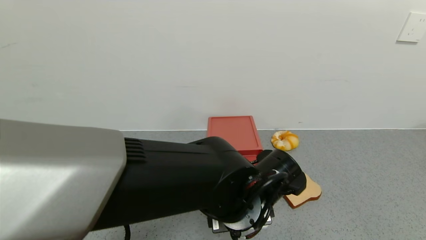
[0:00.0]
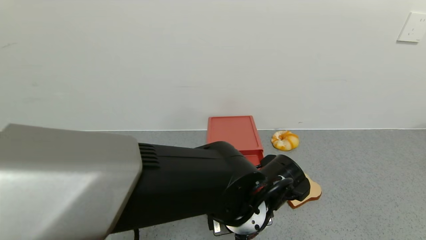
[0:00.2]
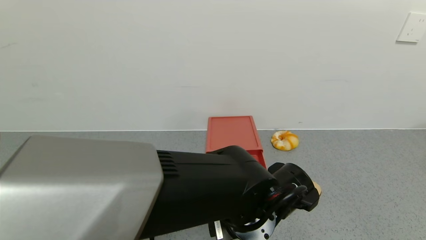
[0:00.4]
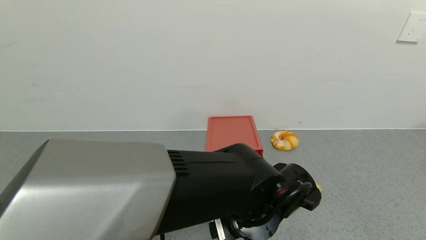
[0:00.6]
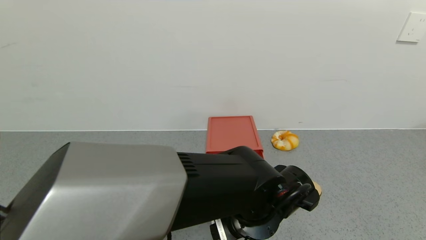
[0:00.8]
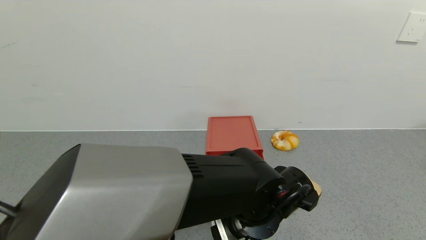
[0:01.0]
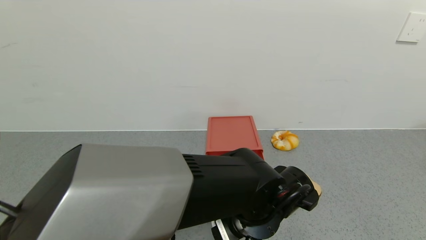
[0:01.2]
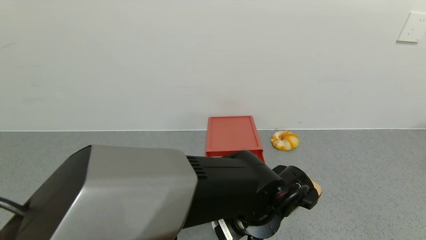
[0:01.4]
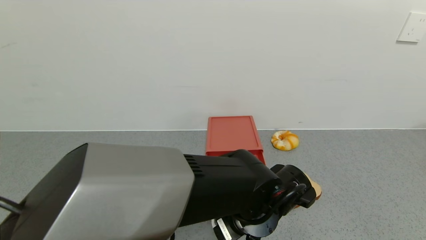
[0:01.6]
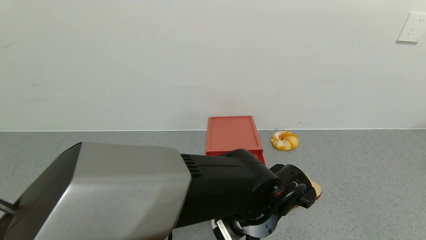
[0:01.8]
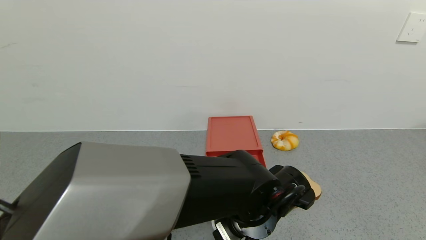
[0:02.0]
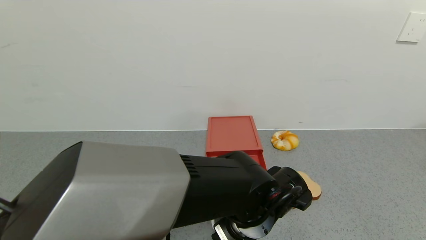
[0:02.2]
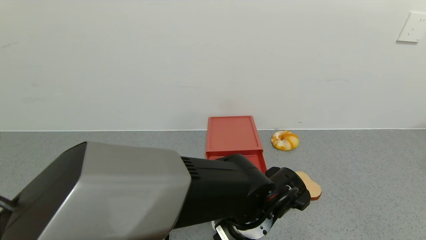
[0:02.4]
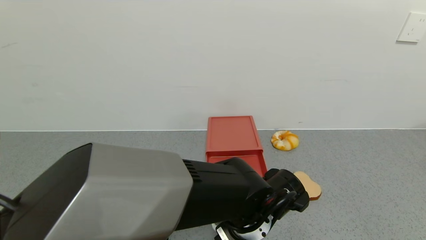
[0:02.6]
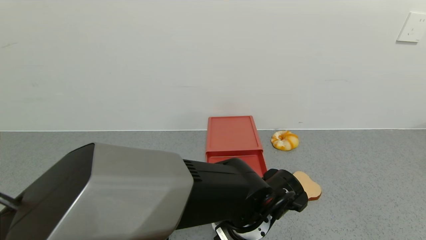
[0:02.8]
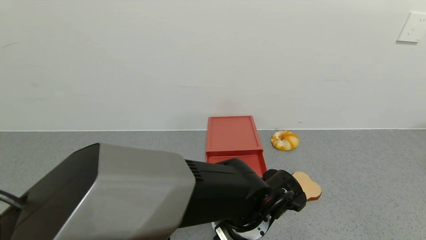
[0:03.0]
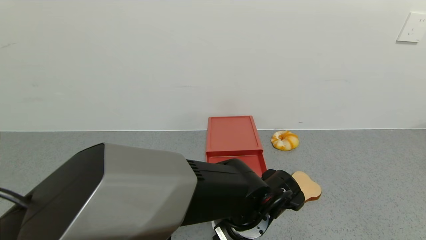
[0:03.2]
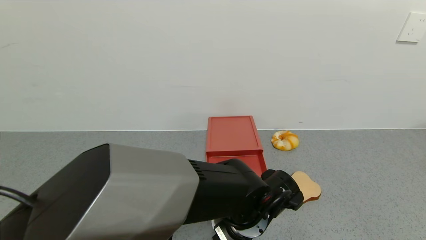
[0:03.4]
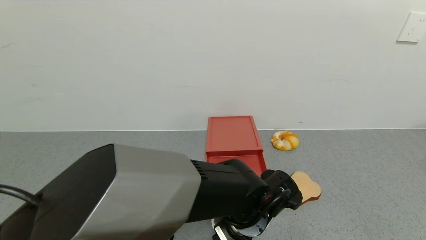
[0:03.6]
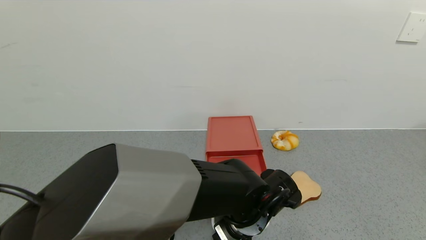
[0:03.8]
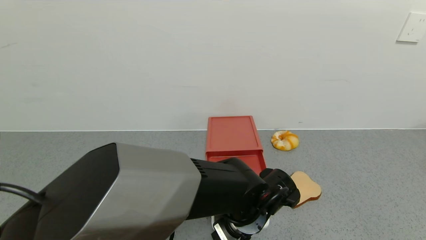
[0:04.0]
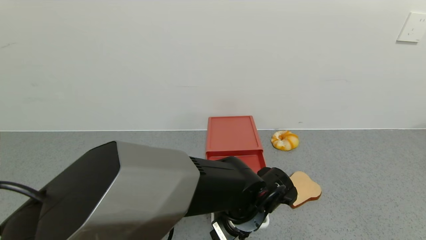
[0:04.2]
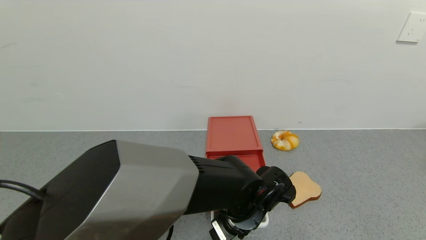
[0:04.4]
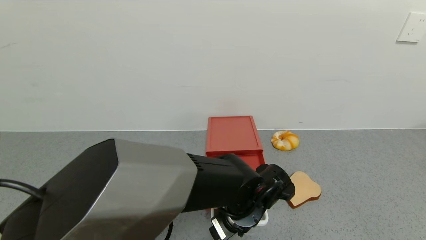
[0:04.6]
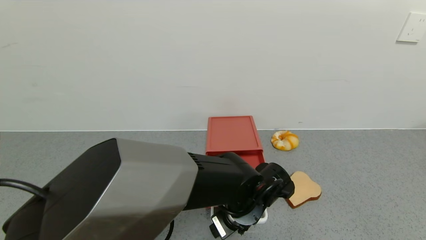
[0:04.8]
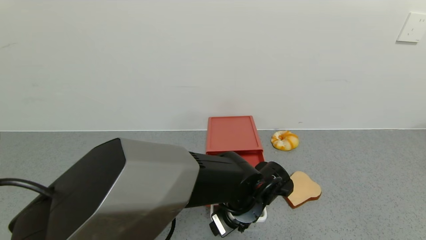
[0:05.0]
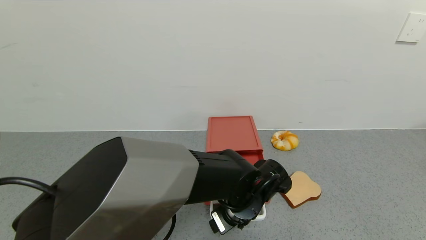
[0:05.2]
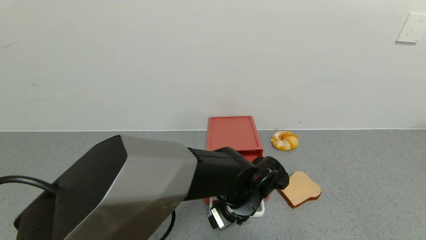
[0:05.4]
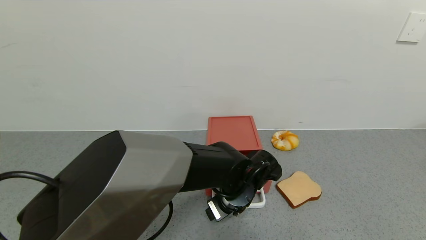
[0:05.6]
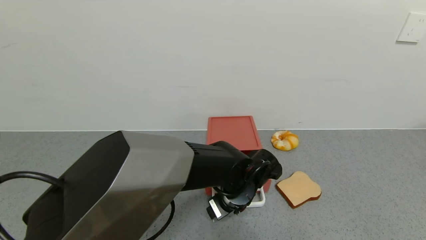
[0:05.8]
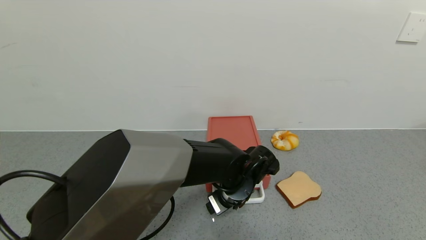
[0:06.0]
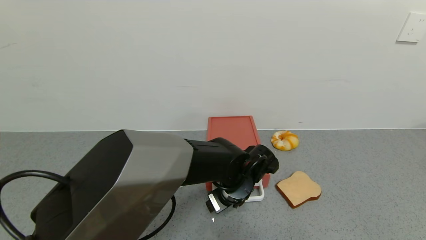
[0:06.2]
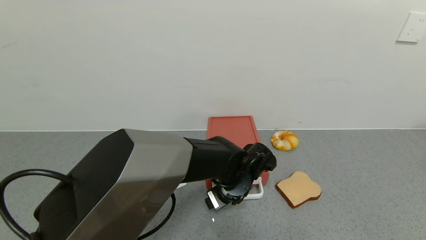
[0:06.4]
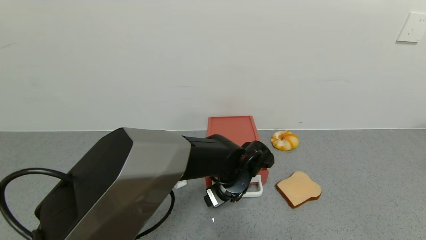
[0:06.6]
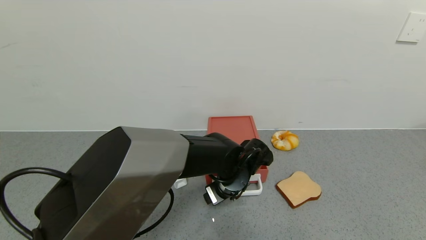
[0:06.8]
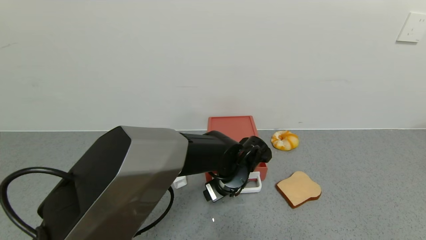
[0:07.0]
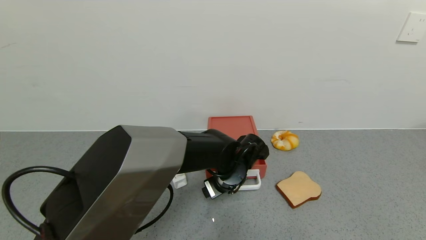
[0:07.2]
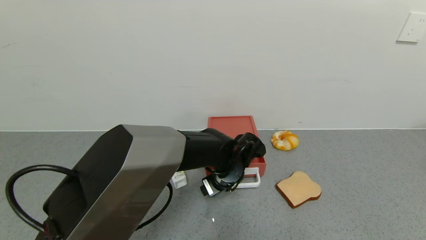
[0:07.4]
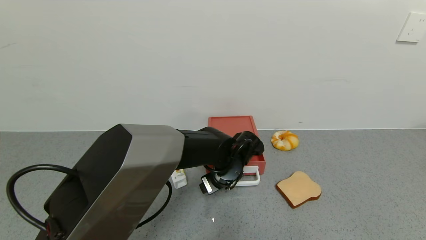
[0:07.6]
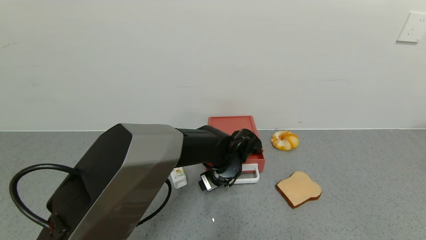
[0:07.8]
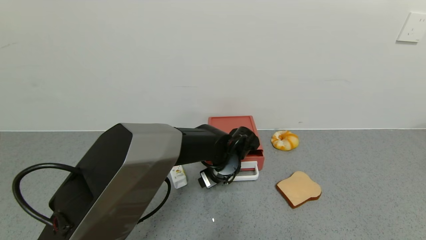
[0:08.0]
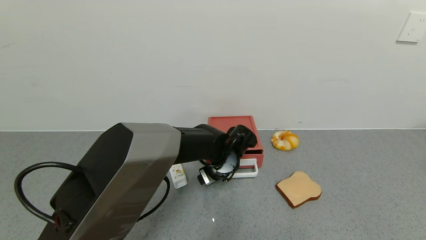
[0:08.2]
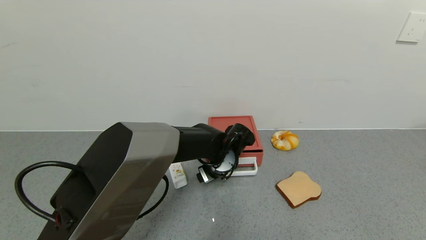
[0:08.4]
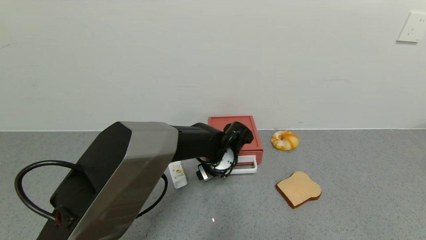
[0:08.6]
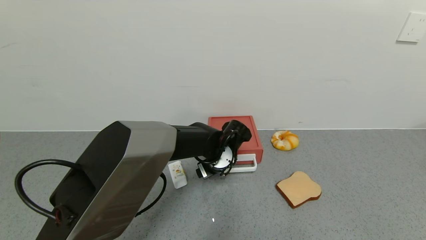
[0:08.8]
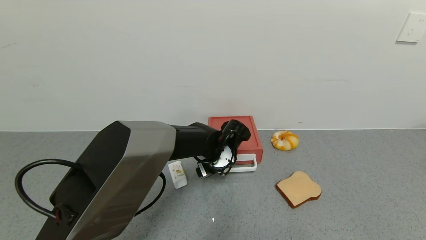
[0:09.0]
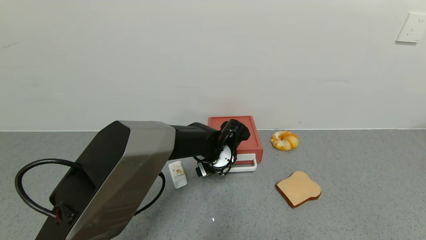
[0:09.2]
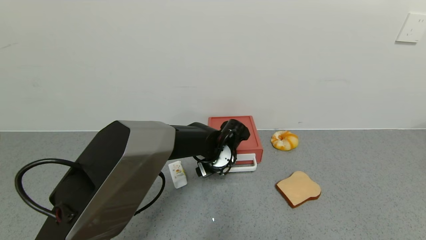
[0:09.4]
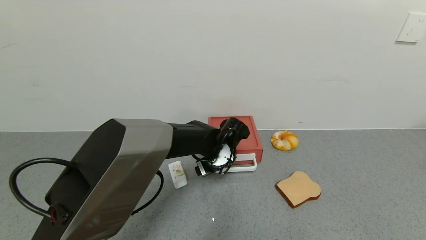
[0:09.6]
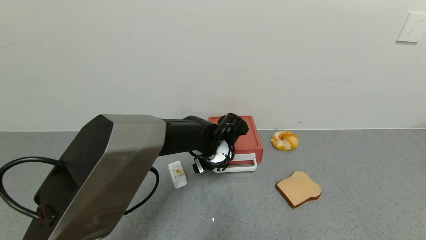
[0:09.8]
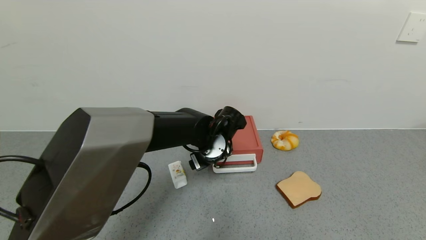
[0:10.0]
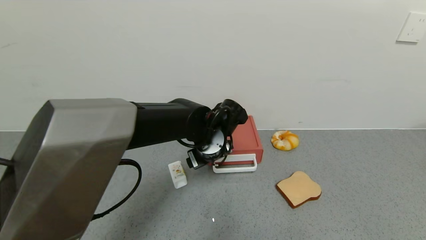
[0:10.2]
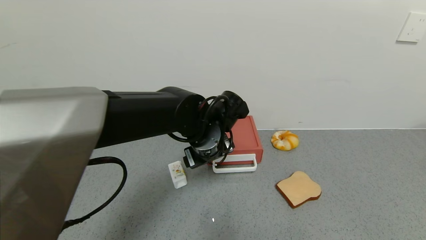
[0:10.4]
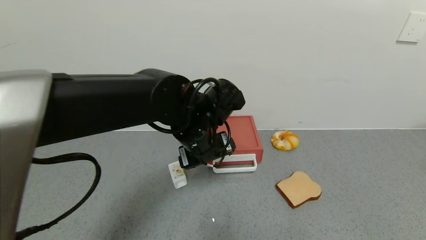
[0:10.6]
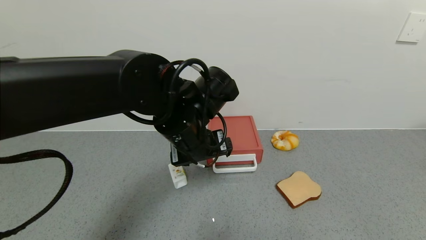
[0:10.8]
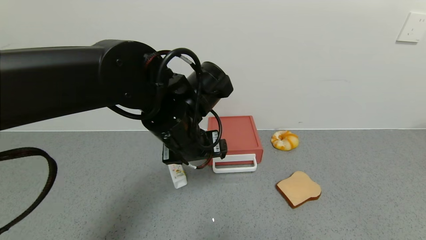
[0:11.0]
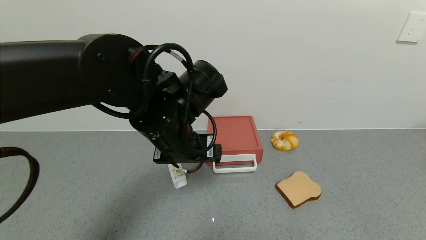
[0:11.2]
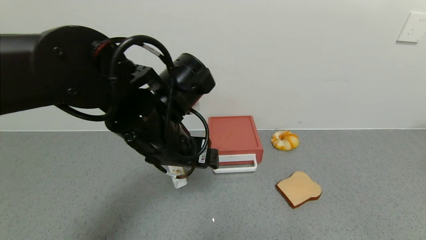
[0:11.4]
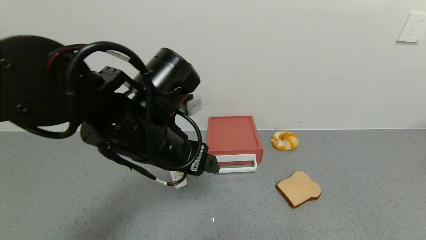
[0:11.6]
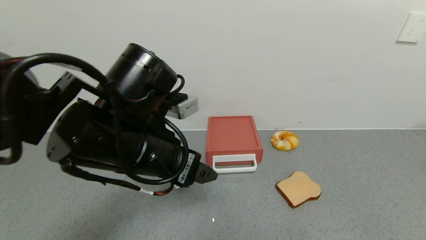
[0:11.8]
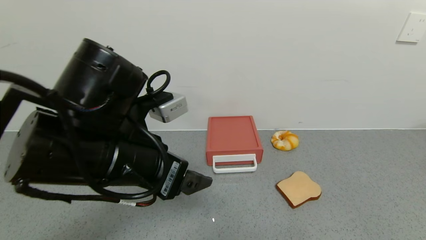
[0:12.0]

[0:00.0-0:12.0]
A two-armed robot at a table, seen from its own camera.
Task of the whole recording: use the gripper to open the drawer and close the red drawer.
Step, 0:00.0 to 0:10.0: Close the red drawer with the left gripper.
0:01.6 to 0:04.4: The grippers stay close to where they were, moving slightly.
0:04.4 to 0:06.0: The left gripper goes roughly 5 cm forward.
0:06.0 to 0:07.6: The grippers stay close to where they were, moving slightly.
0:07.6 to 0:09.0: The left gripper ends up some 5 cm from where it was.
0:09.0 to 0:10.4: The left gripper is displaced upward and backward by some 10 cm.
0:10.4 to 0:12.0: The left gripper heads backward, to the left and upward, covering roughly 20 cm.

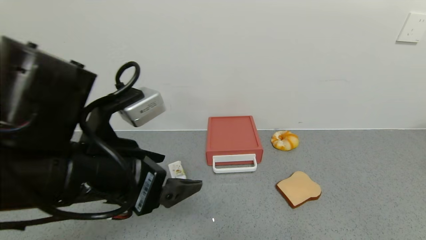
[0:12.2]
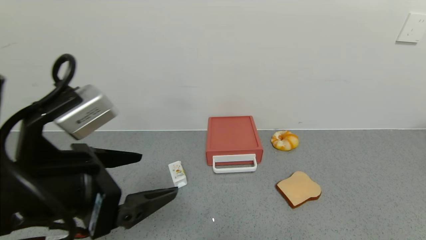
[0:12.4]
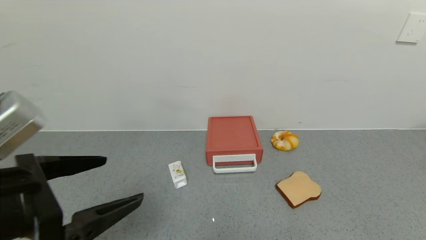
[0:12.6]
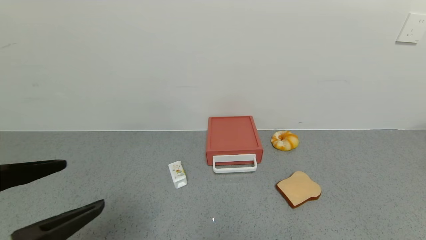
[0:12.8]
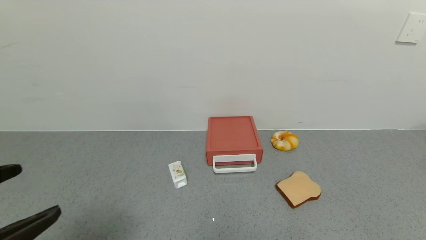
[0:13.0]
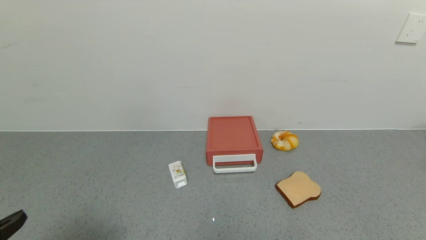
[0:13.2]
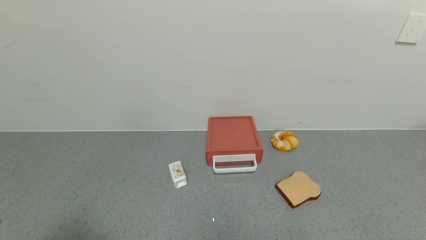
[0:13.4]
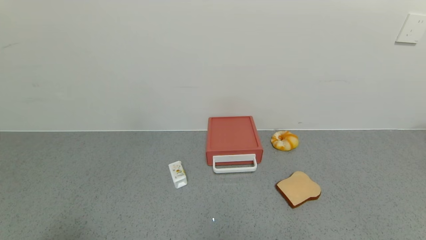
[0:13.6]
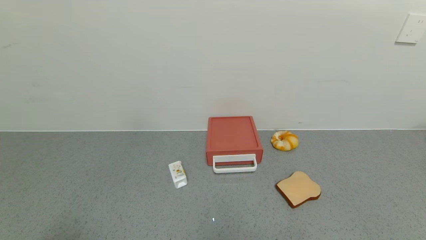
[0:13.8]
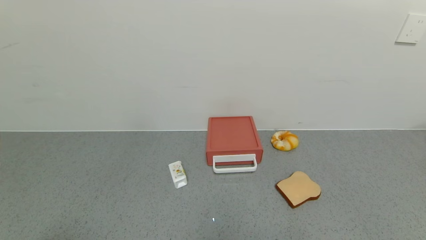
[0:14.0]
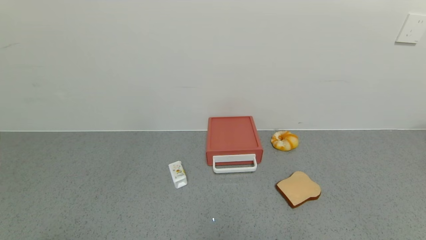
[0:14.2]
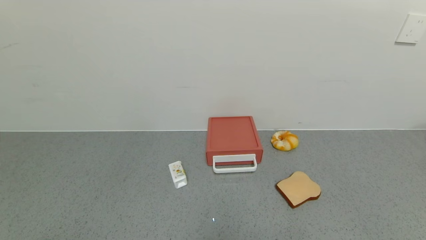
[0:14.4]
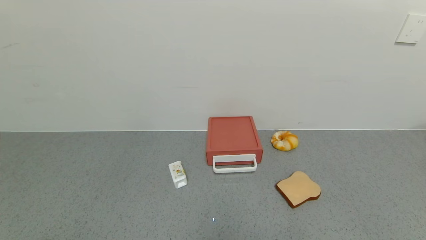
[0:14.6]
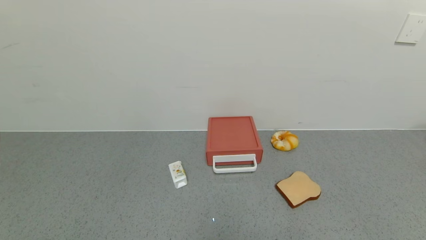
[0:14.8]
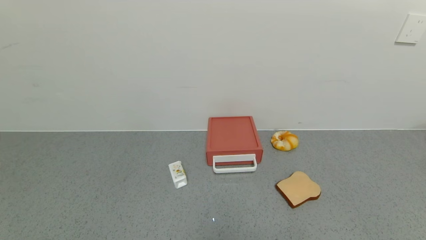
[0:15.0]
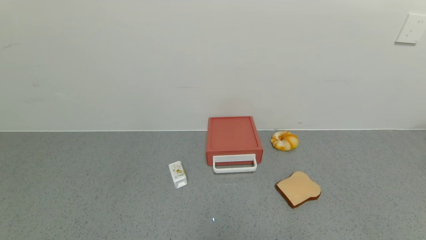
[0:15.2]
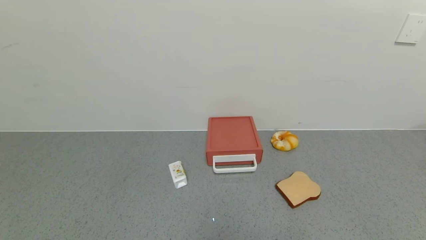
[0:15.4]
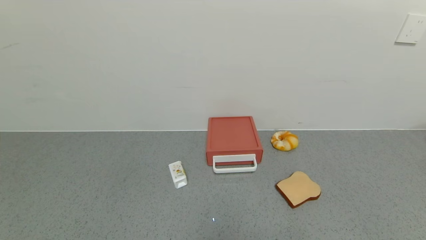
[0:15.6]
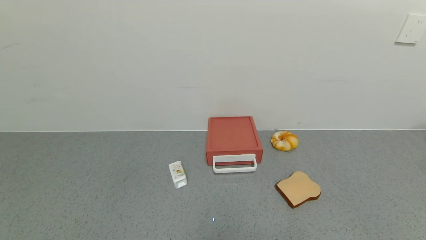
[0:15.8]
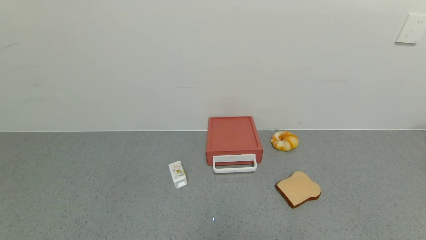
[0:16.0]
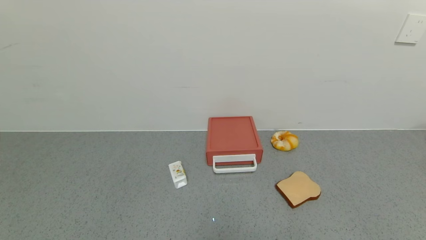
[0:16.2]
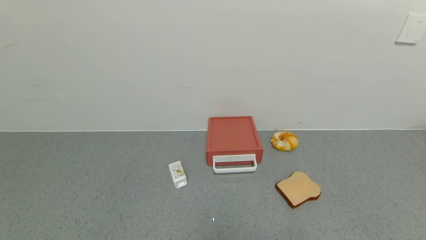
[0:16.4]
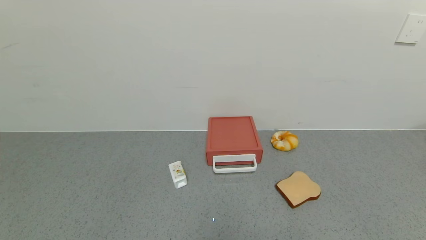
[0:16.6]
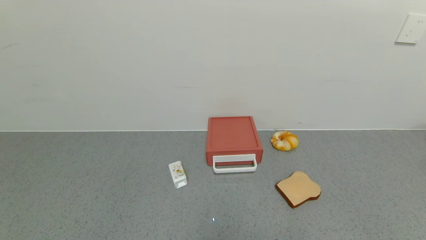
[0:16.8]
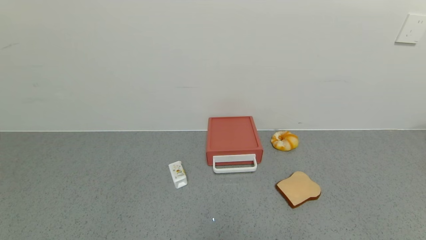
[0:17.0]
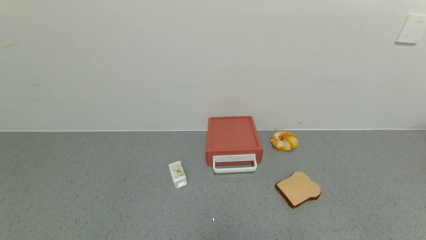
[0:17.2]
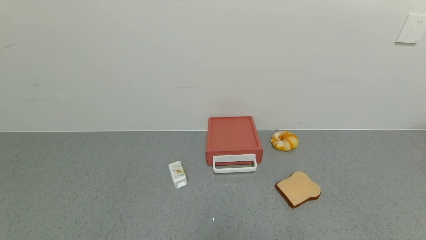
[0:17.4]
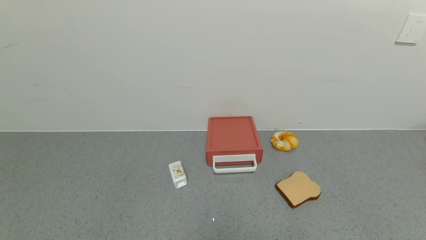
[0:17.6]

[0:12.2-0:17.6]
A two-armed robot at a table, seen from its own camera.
Task of the whole recording: use the gripper to open the drawer and close the red drawer.
0:12.2 to 0:13.6: The left gripper is displaced backward and to the left by roughly 25 cm.
